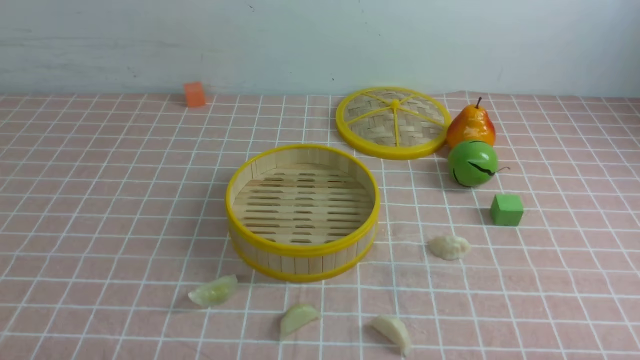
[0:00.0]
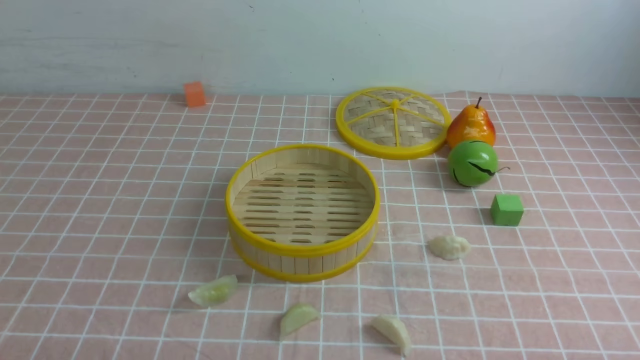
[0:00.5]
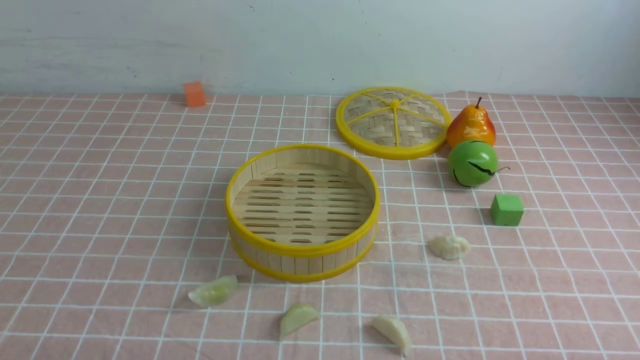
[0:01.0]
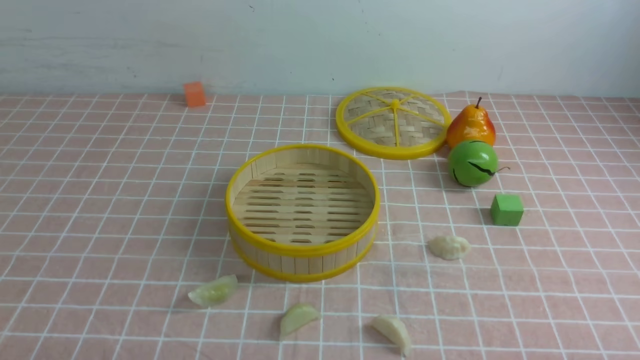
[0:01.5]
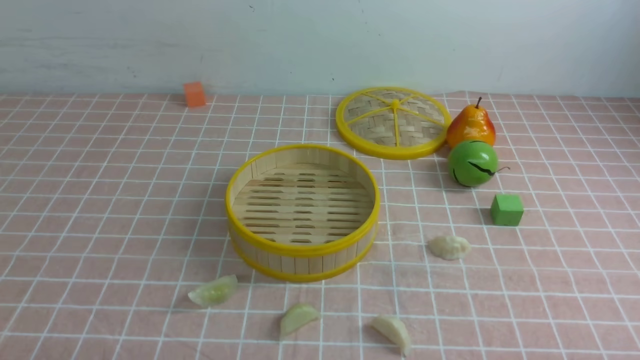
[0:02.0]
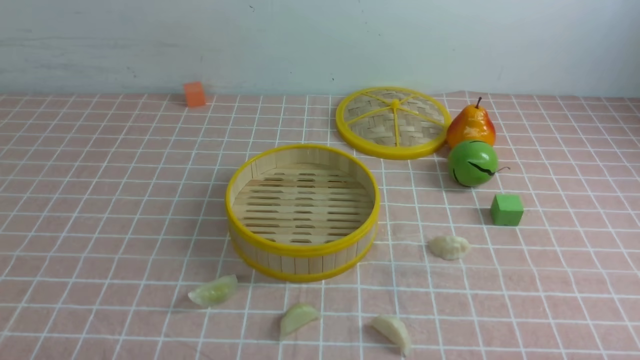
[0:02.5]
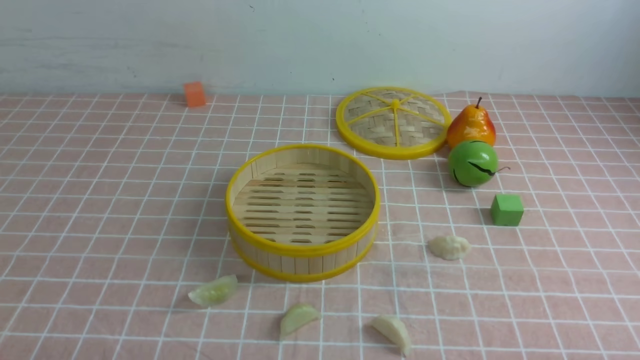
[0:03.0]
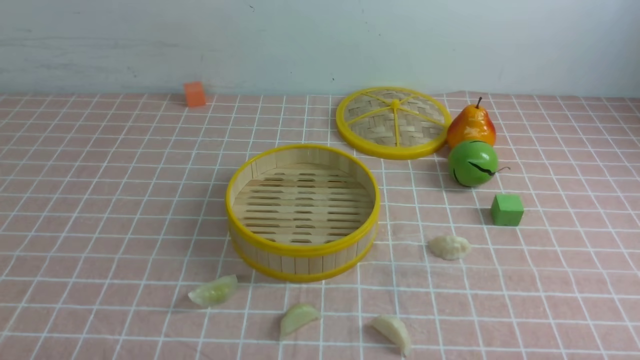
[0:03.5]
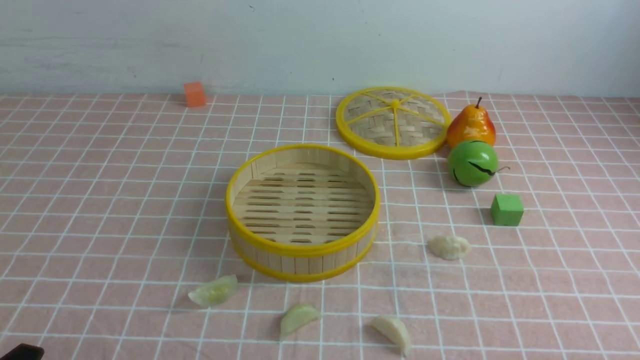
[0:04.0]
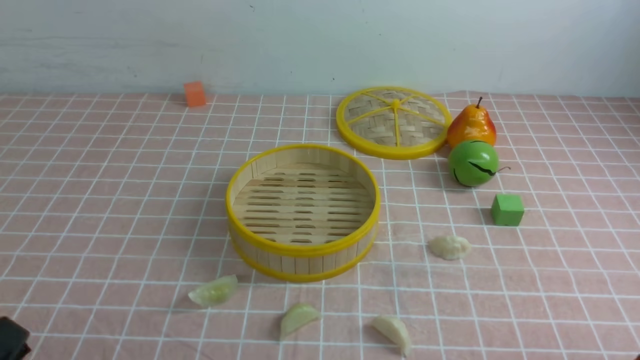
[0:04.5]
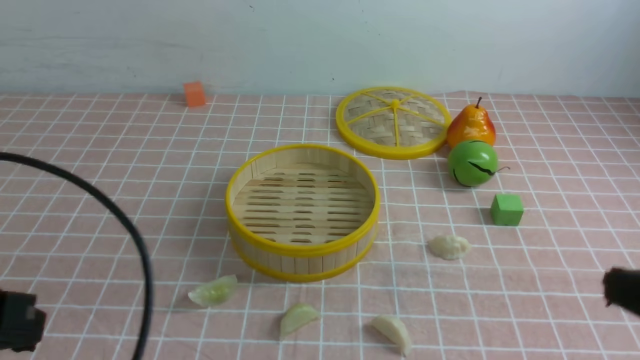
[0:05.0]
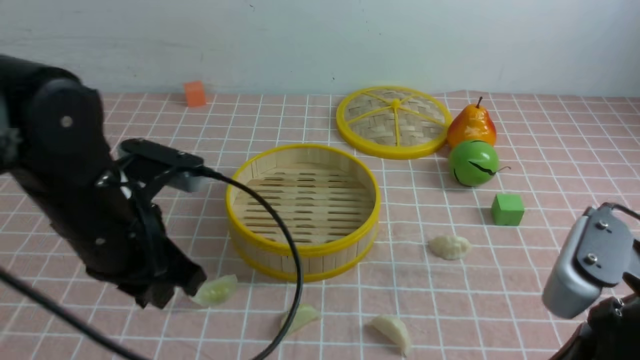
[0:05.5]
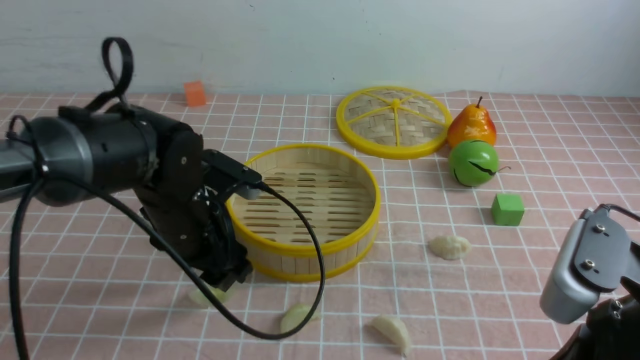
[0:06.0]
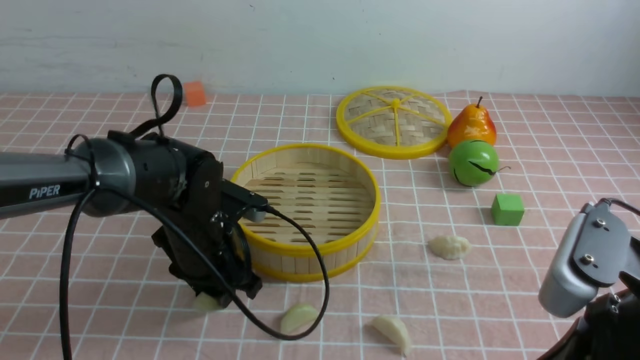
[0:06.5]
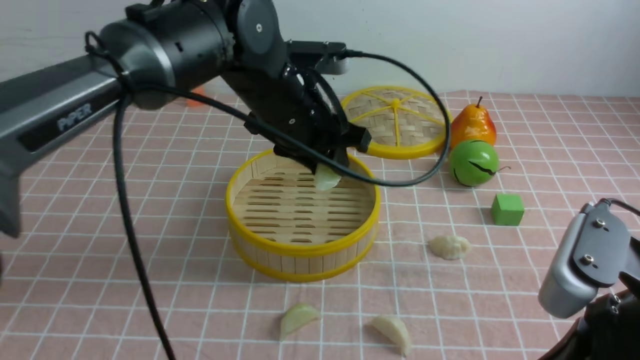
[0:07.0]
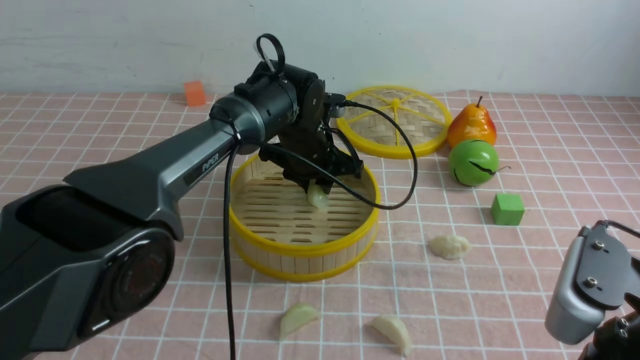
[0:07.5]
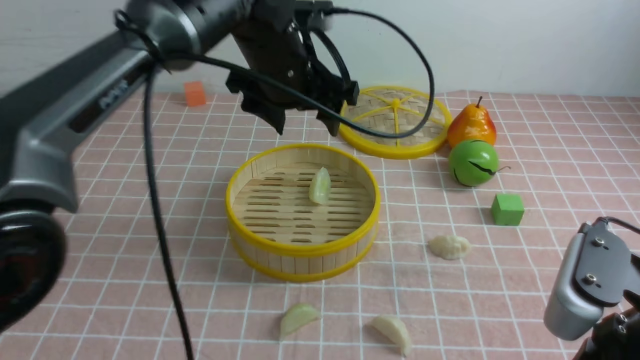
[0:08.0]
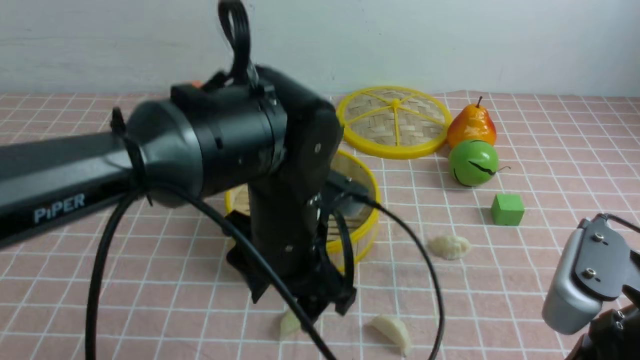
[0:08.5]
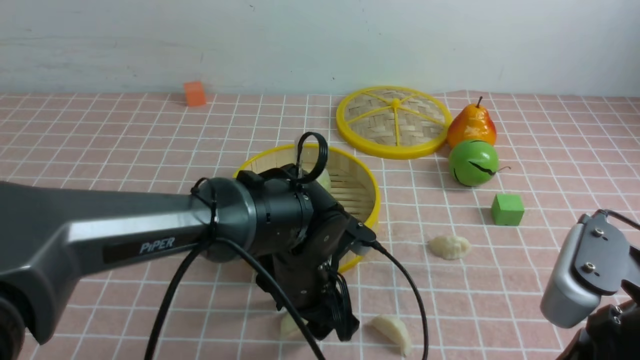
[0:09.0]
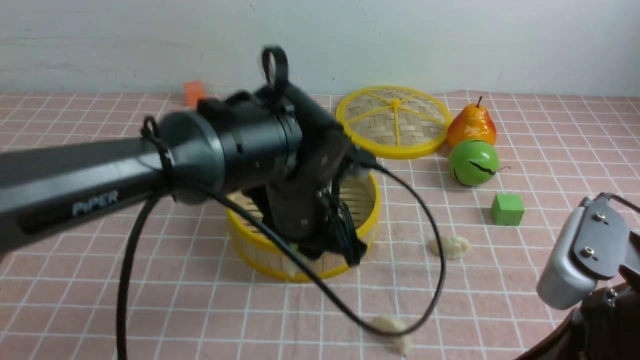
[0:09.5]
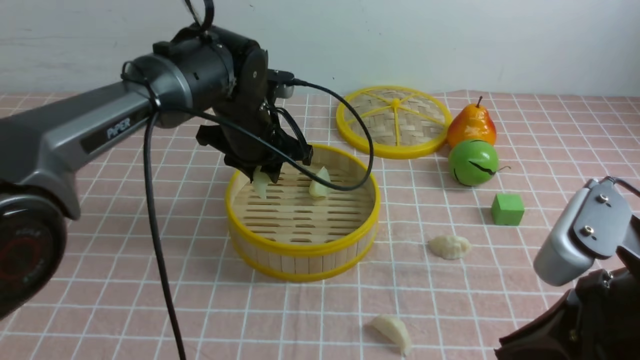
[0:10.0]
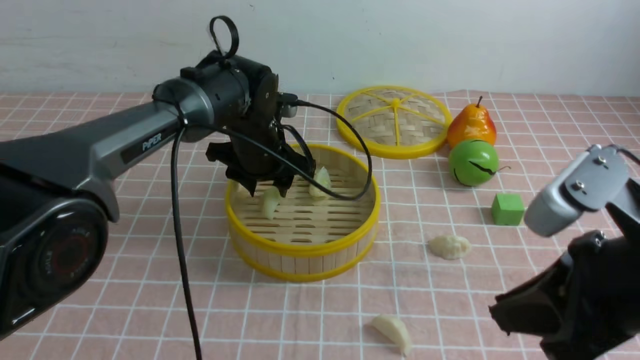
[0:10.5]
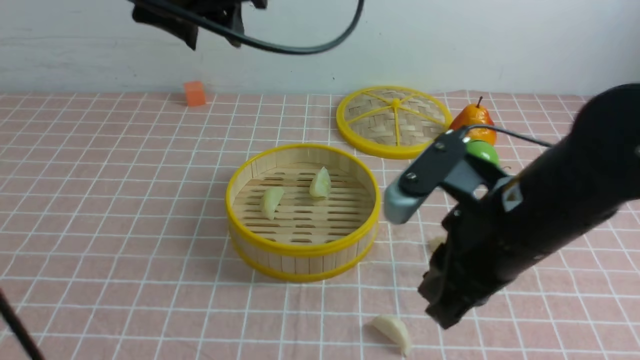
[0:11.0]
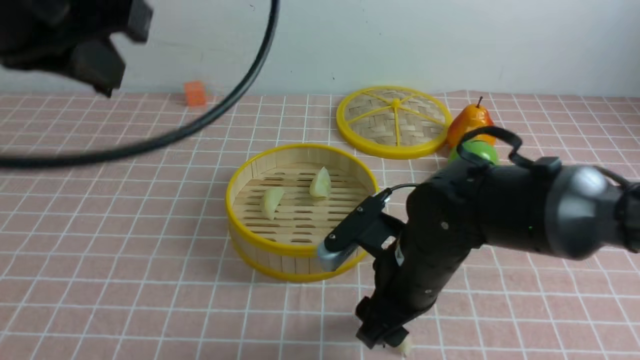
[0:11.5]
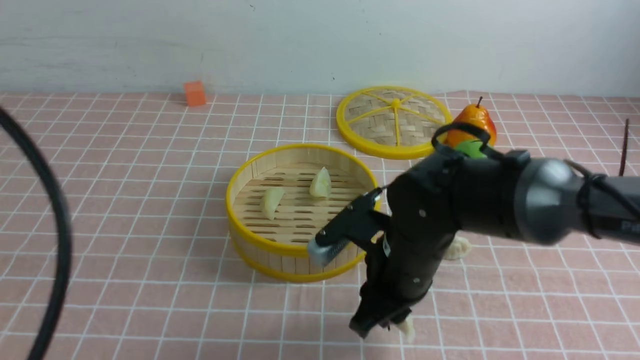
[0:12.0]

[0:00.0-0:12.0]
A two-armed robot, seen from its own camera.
Task of the whole recording: put the dumplings into the steamer on the table with the pink tablecloth.
Step, 0:00.0 to 0:06.5: use the left arm to grab a dumpling.
Step, 0:07.0 to 0:08.0: use the left arm to put the dumpling into the steamer.
Step, 0:08.5 to 0:09.0: use the left arm to grab a dumpling.
Step, 0:09.5 to 0:10.0: use the left arm to put the dumpling into the steamer.
Step, 0:10.5 to 0:11.5: use the right arm to grab a dumpling.
0:04.0 to 0:06.0: The left gripper moves forward and to the right, about 30 cm, and opens its fingers, while the right gripper travels upward, to the left and forward by some 15 cm, and closes up.
0:06.0 to 0:08.0: The left gripper moves to the right, forward and upward, about 15 cm, and closes, then reopens.
0:08.0 to 0:10.0: The left gripper travels backward and back again, some 15 cm each way, and closes its fingers.
0:10.0 to 0:12.0: The right gripper travels forward, to the left and downward by roughly 25 cm, and opens its fingers. Meanwhile the left gripper heads backward, upward and to the left, covering approximately 40 cm, and closes its fingers.

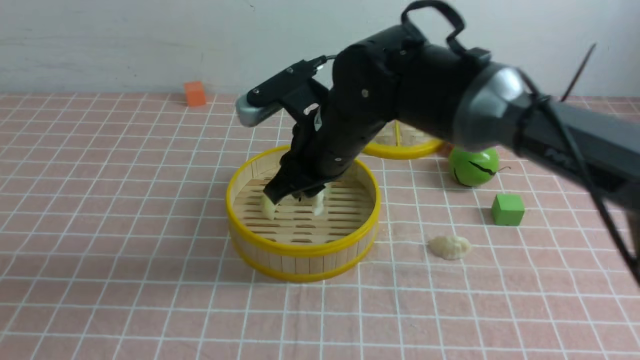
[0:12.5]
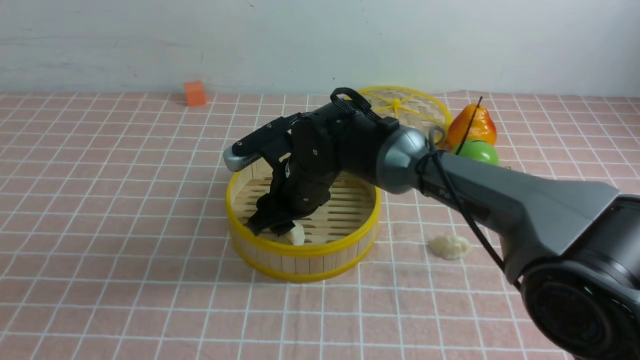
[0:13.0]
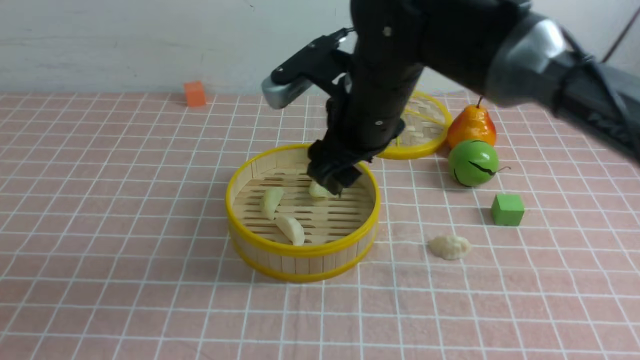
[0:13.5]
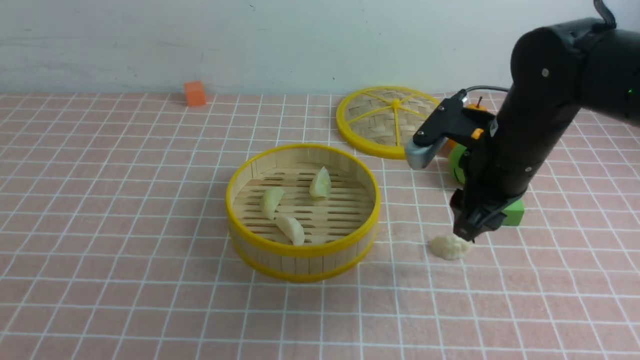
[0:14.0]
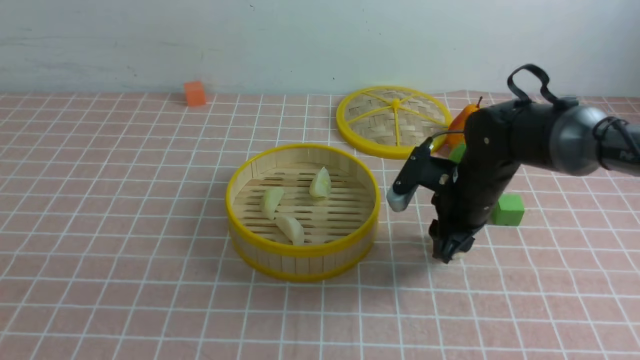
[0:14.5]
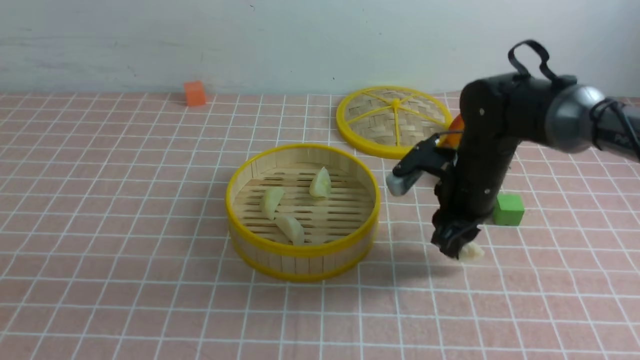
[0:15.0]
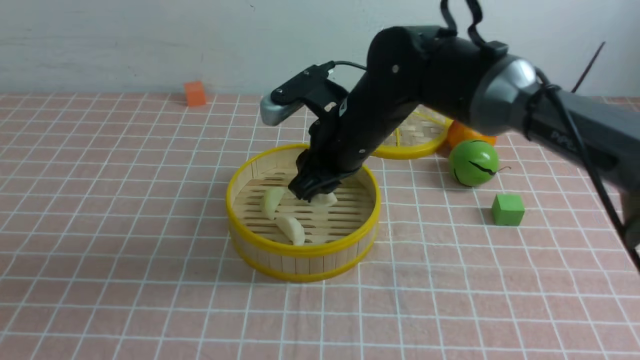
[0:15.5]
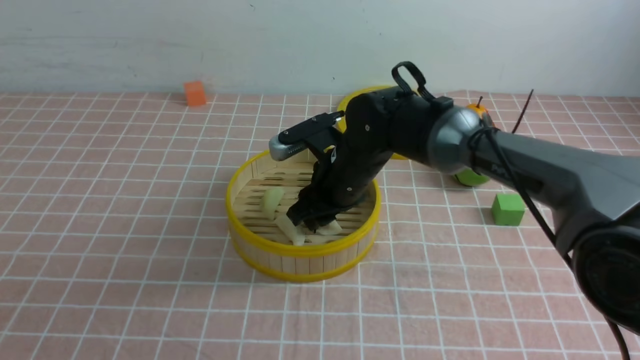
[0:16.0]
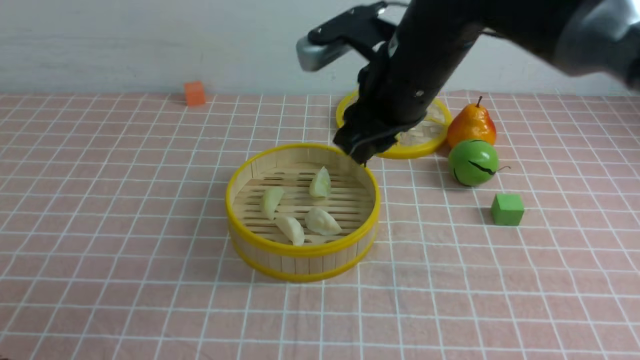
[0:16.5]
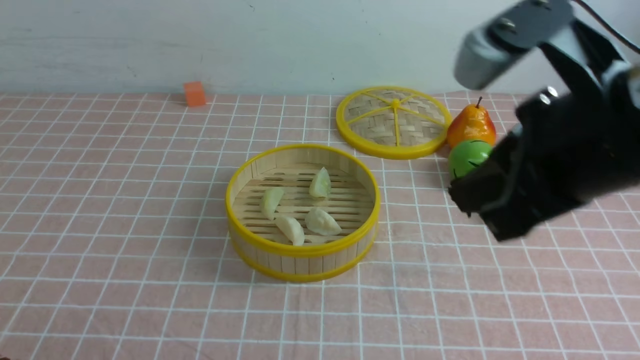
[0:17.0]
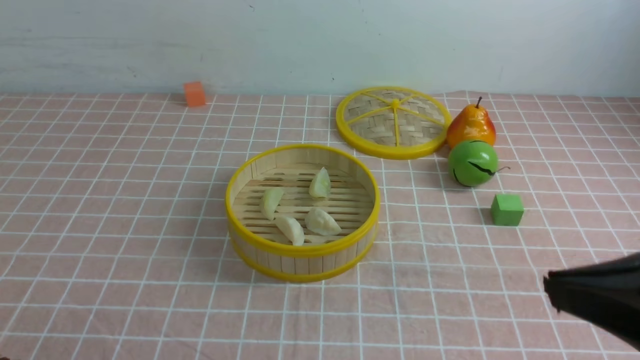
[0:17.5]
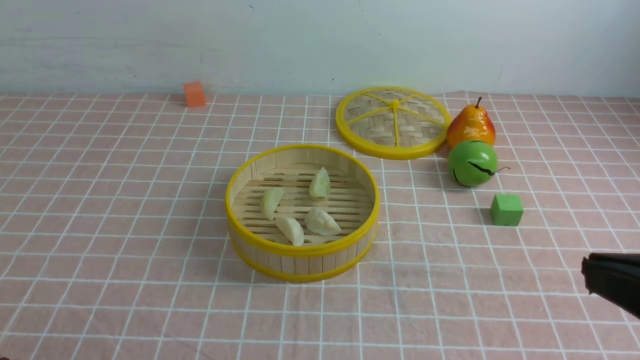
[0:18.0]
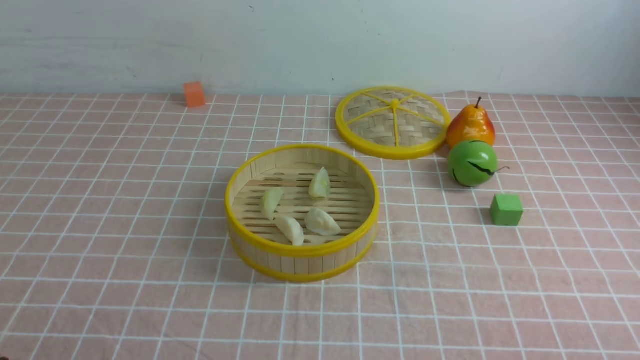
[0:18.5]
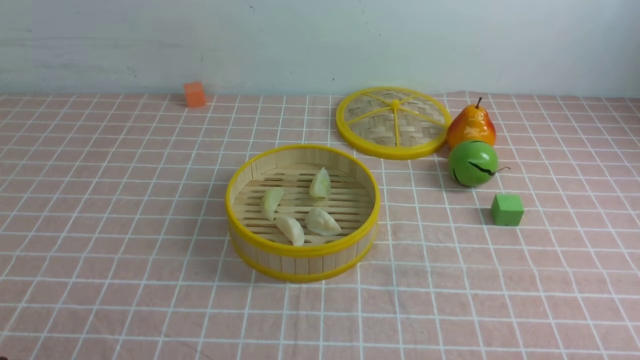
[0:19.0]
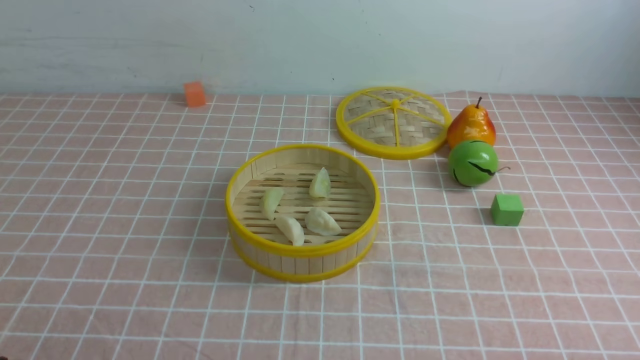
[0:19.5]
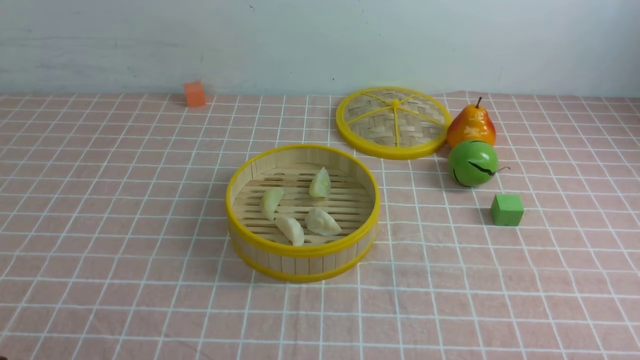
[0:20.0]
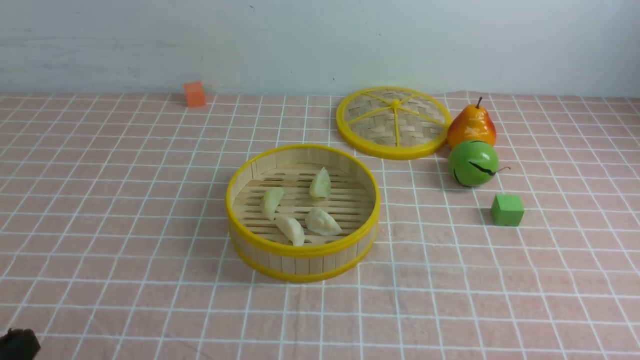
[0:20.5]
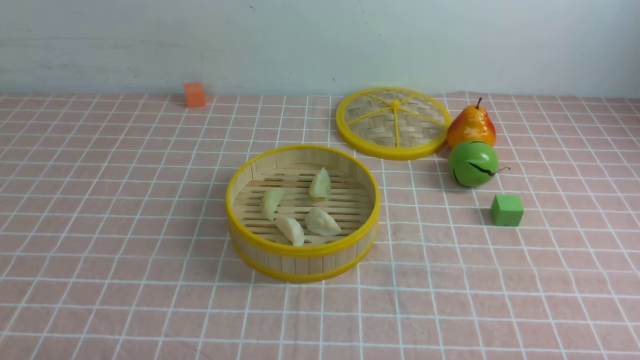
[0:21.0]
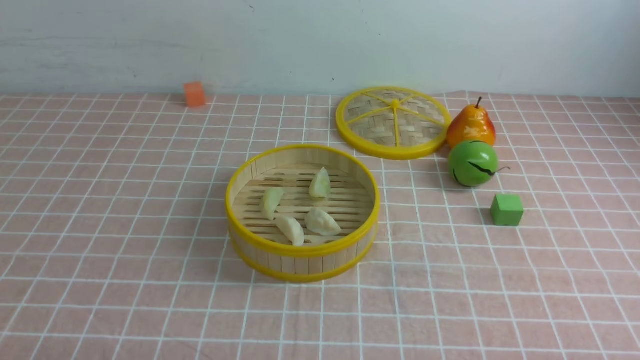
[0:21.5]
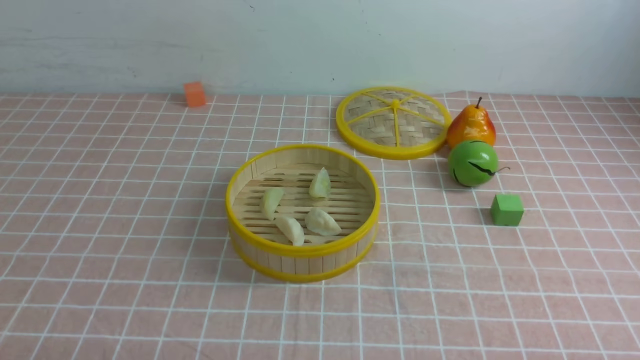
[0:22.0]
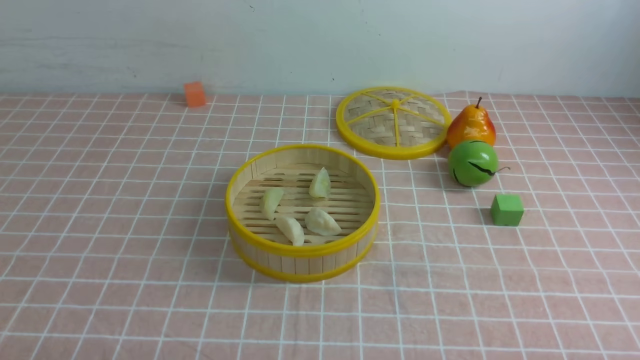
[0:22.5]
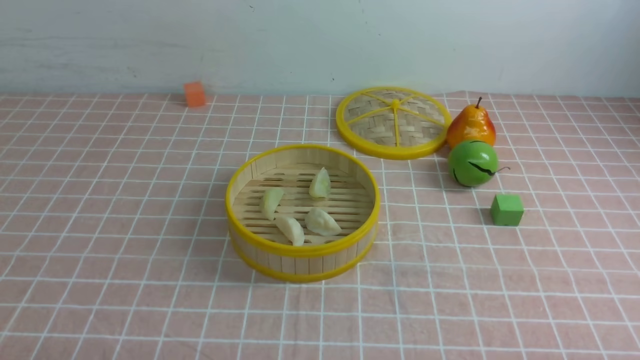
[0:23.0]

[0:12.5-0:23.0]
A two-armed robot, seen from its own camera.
Task of the whole recording: put the dumplings into the steamer on the table with the pink tablecloth.
Step, 0:13.5 to 0:14.5: use the right arm to grab a dumpling.
Step, 0:15.5 to 0:16.0: use the right arm to put the dumpling into the steamer.
0:12.5 to 0:14.5: The right gripper goes about 15 cm to the right and downward.
0:14.5 to 0:16.5: The right gripper shifts approximately 15 cm upward and to the left; the left gripper shifts roughly 15 cm downward.
0:16.5 to 0:19.0: The right gripper is displaced backward, to the right and downward by about 40 cm, and closes its fingers.
